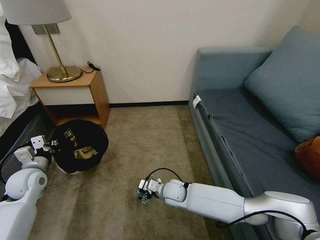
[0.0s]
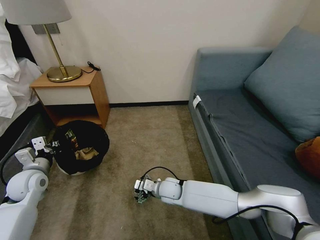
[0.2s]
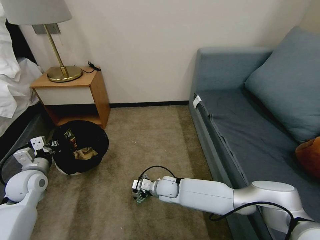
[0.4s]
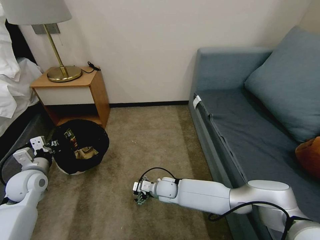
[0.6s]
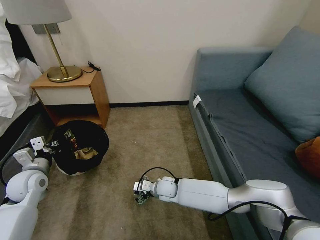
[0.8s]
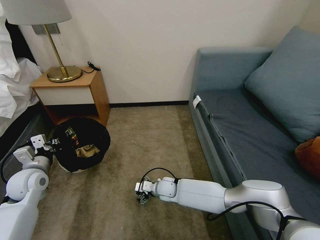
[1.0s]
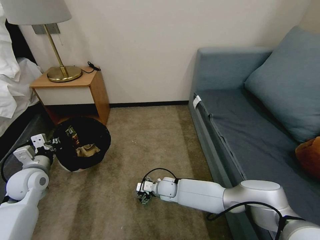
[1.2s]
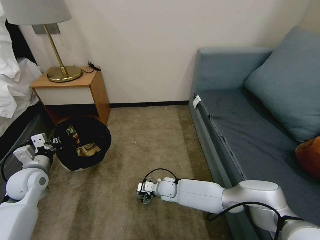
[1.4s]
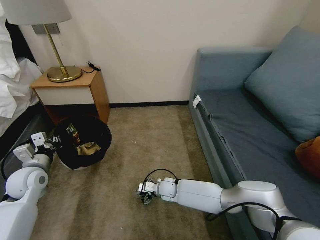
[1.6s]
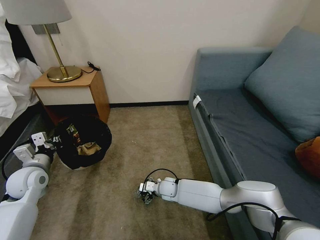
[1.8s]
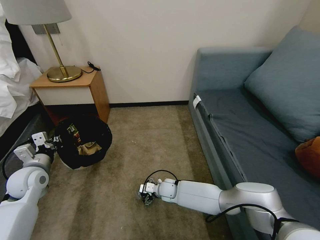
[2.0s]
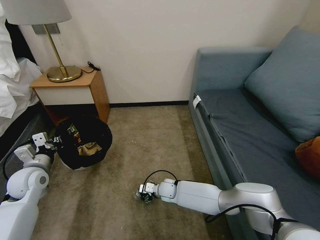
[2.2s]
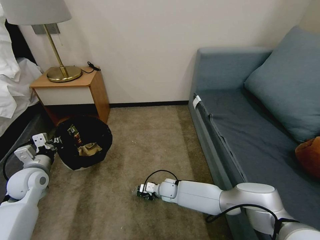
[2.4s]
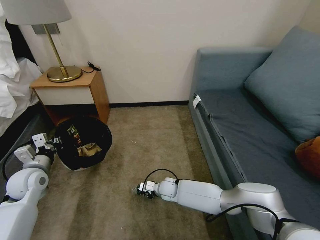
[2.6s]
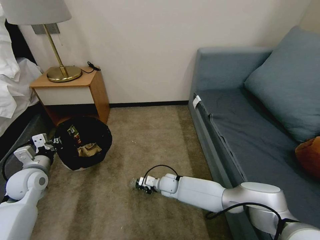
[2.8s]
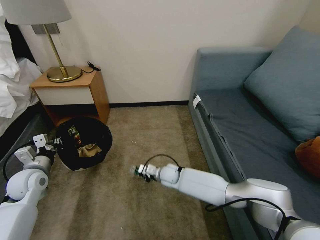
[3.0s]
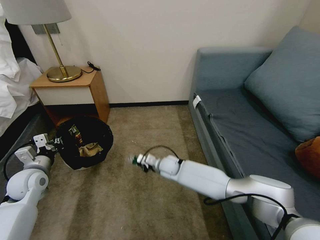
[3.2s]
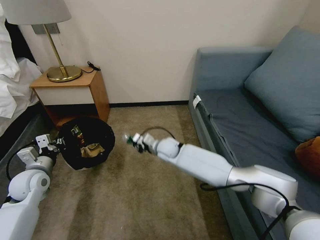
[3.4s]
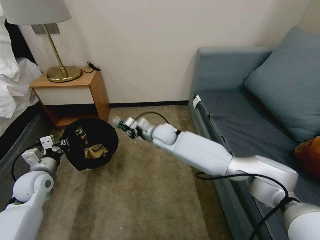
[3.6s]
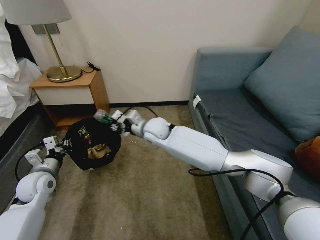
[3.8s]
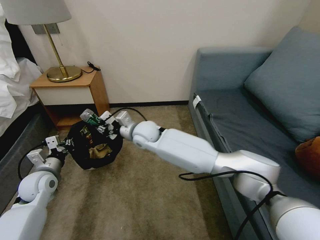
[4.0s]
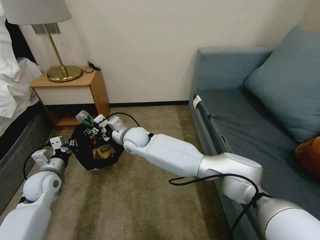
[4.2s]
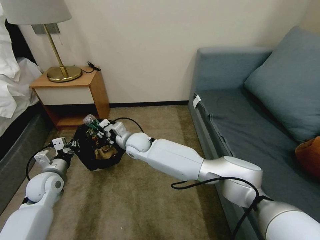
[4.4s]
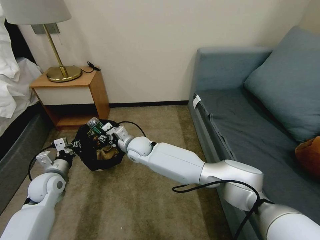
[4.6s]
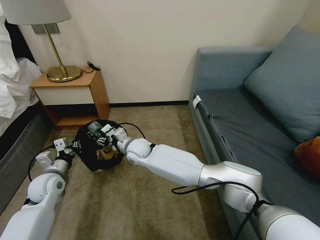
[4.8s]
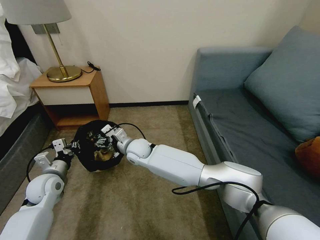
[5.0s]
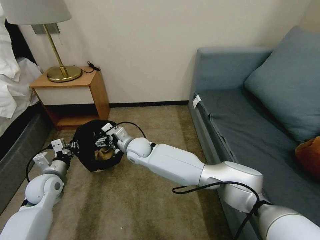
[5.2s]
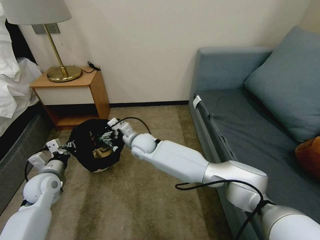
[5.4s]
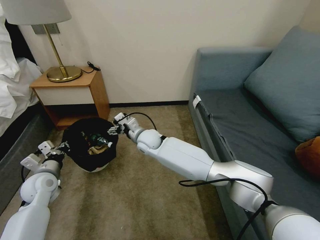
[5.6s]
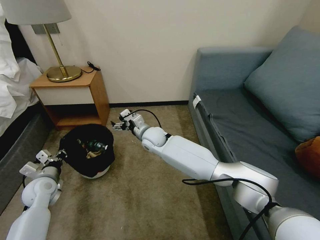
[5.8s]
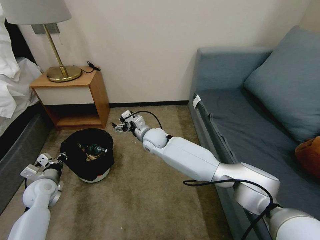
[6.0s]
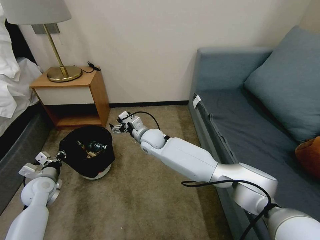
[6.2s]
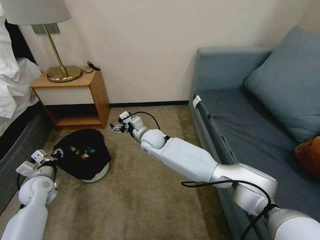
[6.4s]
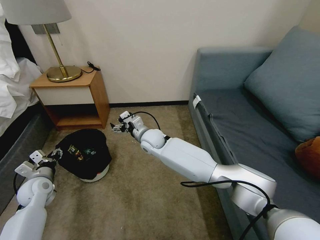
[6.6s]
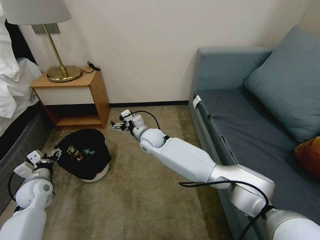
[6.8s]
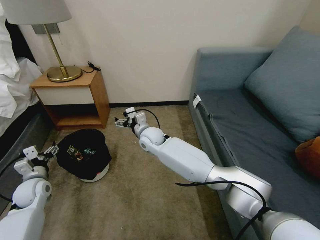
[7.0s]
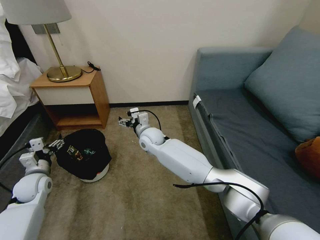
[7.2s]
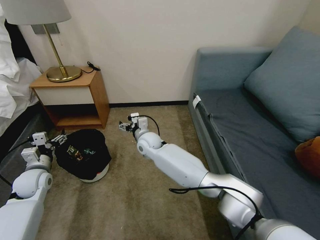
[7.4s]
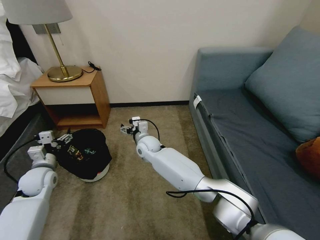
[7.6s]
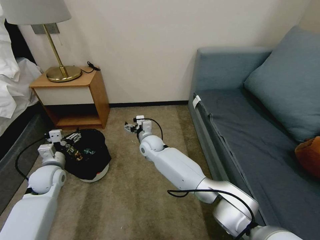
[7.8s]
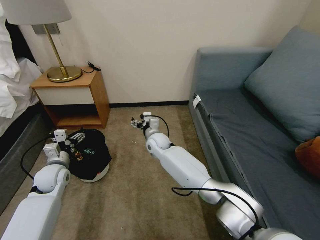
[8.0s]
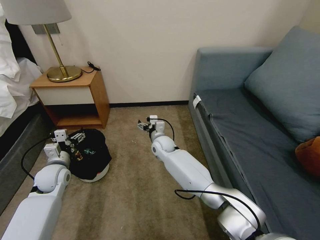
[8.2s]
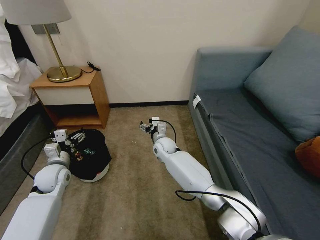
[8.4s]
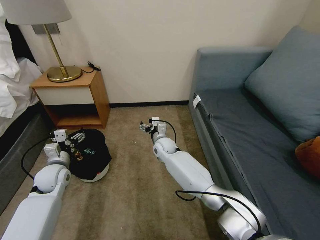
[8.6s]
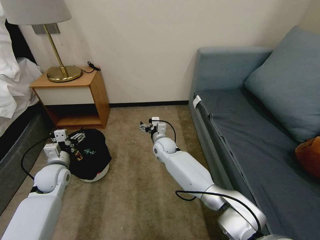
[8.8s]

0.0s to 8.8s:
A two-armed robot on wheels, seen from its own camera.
Task of the whole recording: Pick up the trash bin, then pick up the garbage on the floor and place it into the trash bin.
0.0s to 1.4s: The right gripper shifts some 5 cm downward.
1.4s to 3.0s: The right gripper ends up roughly 5 cm from where it was, and closes its fingers.
3.0s to 4.4s: The right gripper goes roughly 20 cm upward and to the left.
4.4s to 5.8s: The right gripper is displaced to the right by roughly 5 cm, and opens up.
5.8s to 7.4s: The left gripper opens up.
7.4s to 8.8s: The grippers both shift to the right by roughly 5 cm.

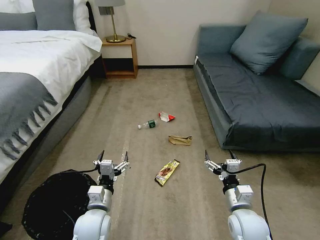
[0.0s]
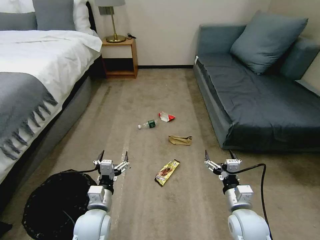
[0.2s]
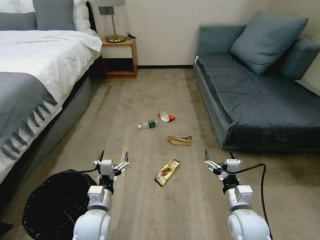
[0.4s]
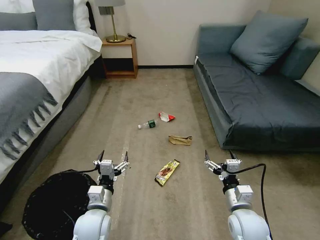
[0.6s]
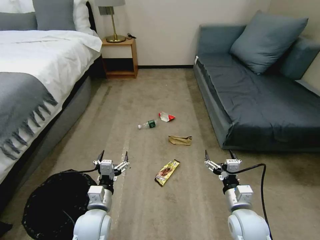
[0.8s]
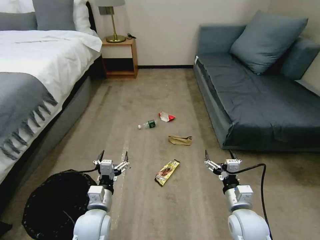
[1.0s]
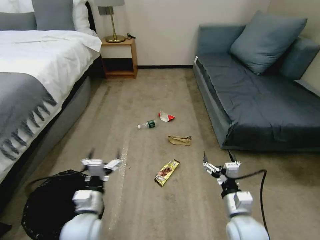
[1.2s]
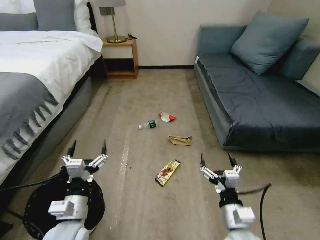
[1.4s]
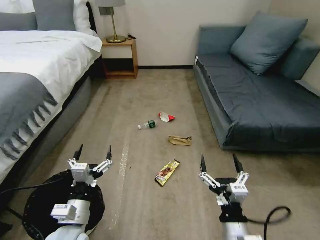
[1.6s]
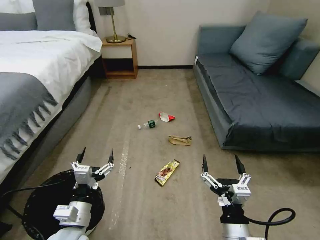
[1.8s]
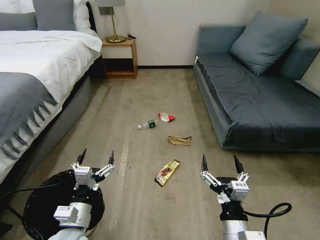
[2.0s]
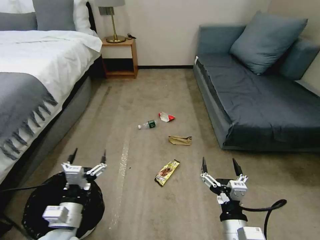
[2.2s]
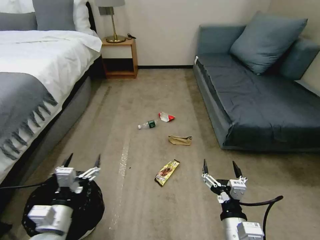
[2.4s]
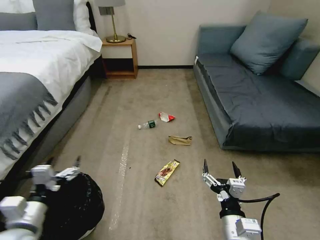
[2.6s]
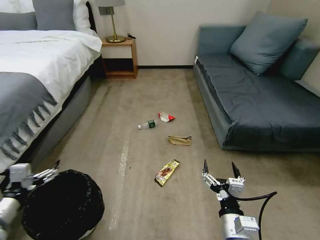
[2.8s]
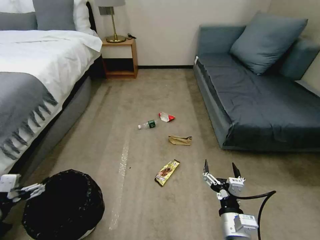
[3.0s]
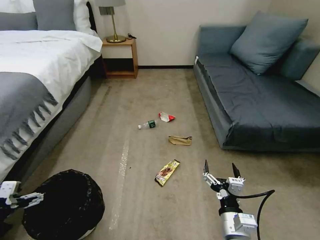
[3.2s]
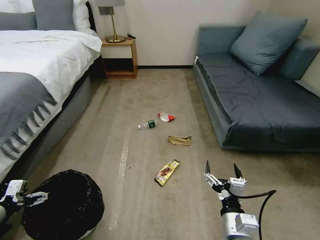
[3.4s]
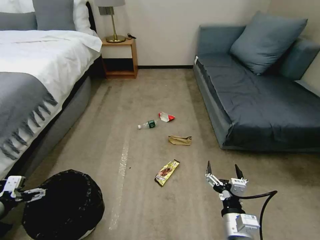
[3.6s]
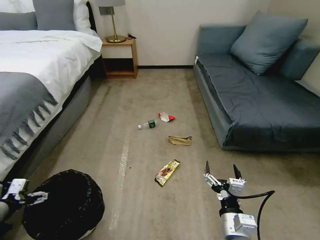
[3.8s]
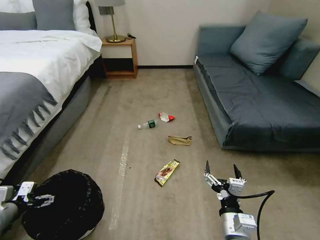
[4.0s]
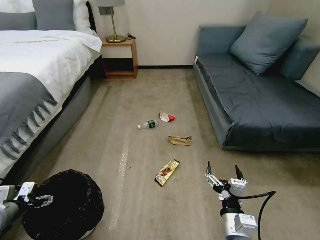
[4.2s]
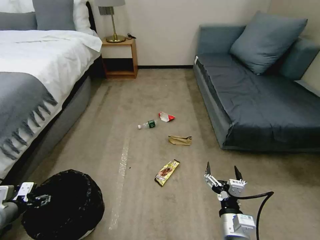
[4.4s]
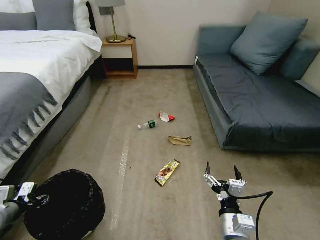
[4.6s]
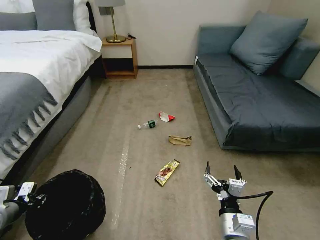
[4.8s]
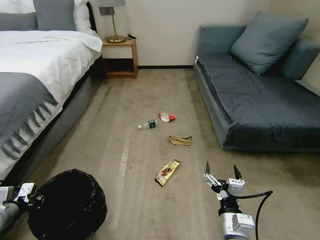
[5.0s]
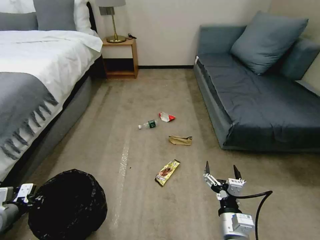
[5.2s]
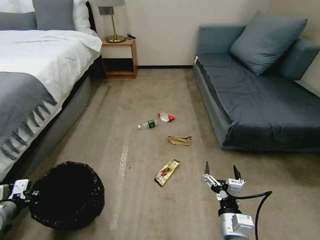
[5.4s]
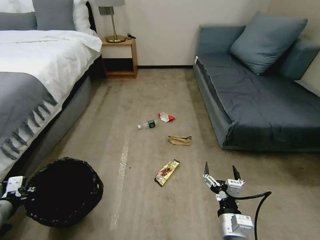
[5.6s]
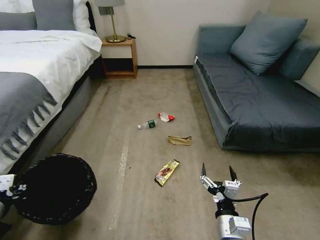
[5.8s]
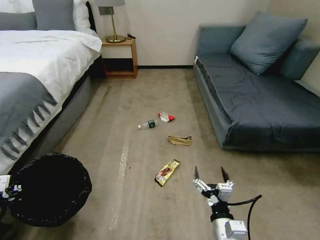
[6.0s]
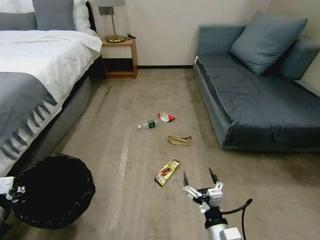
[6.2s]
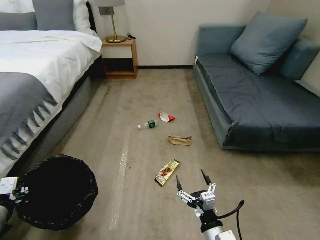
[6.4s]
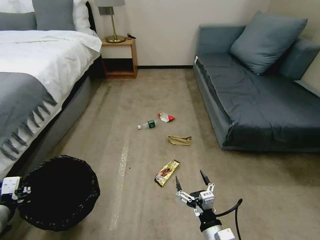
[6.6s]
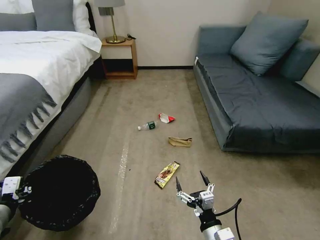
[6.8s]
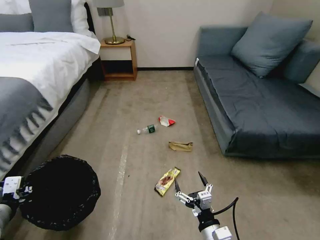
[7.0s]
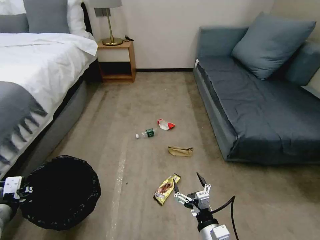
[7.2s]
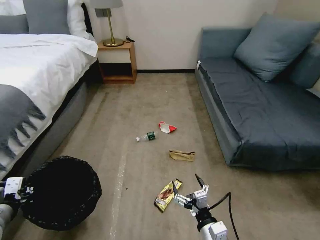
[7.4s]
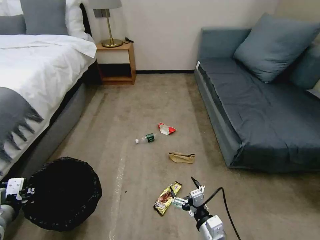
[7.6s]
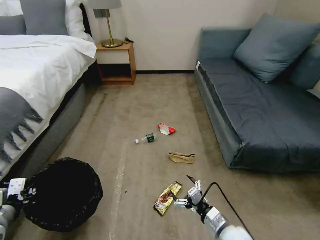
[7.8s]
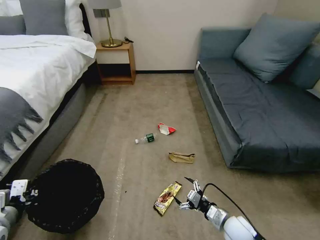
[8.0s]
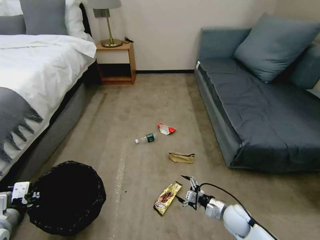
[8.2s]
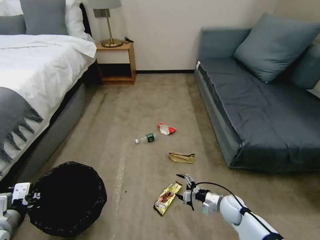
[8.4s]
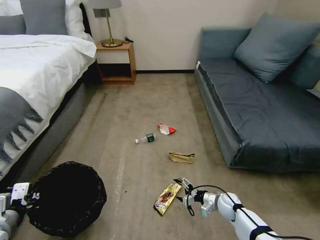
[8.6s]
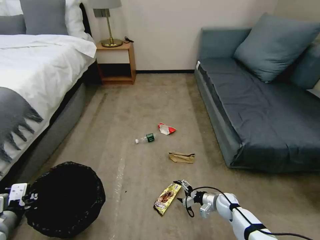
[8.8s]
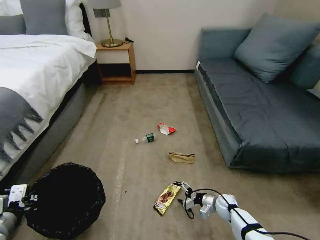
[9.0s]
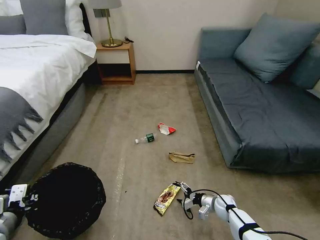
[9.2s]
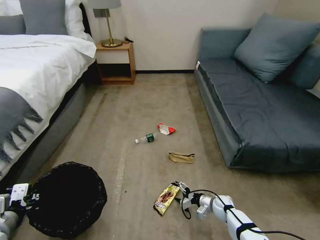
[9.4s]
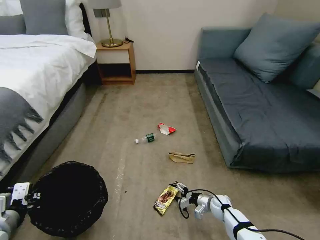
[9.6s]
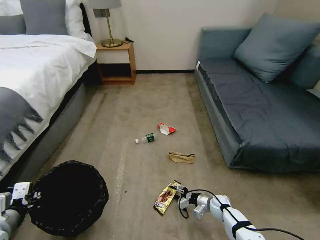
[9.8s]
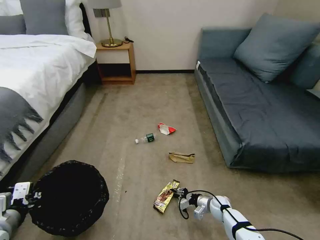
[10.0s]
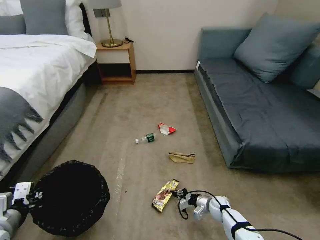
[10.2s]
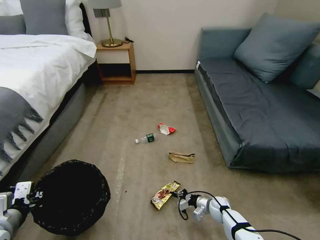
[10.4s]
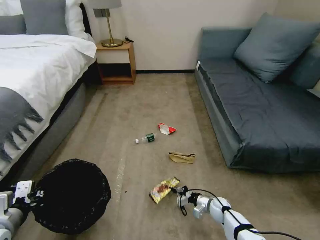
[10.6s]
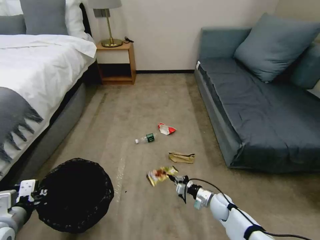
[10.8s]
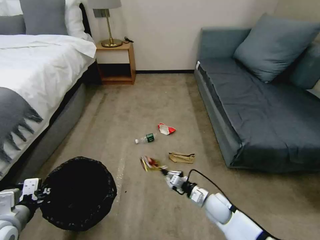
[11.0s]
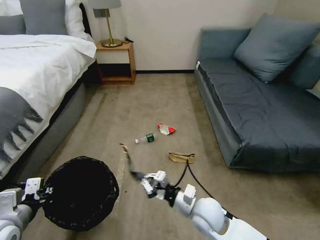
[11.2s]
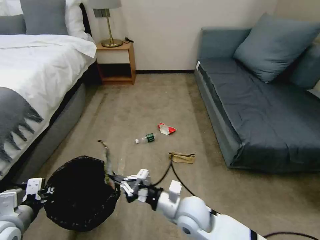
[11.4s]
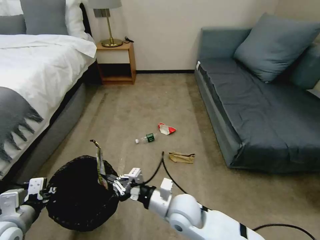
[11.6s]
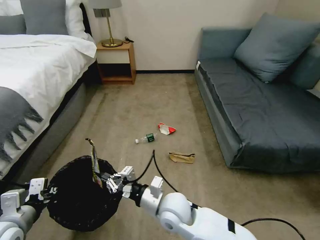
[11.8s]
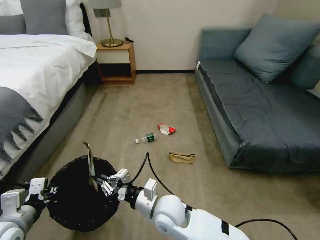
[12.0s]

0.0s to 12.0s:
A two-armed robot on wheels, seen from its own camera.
Task of the whole recording: Pick up the trash bin, then pick up the garbage on the floor and place it into the trash bin.
1.6s to 3.0s: The left gripper is displaced to the left by roughly 20 cm.
3.0s to 4.4s: The left gripper heads downward and forward, covering some 10 cm.
4.4s to 6.0s: The left gripper travels upward and to the right by roughly 10 cm, and closes up.
7.6s to 9.0s: The right gripper moves forward, downward and to the right, some 30 cm.
9.0s to 10.4s: The right gripper closes up.
10.4s to 12.0s: The right gripper shifts approximately 35 cm to the left and upward.

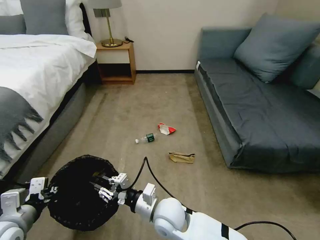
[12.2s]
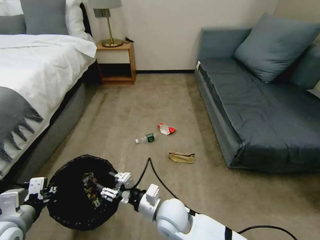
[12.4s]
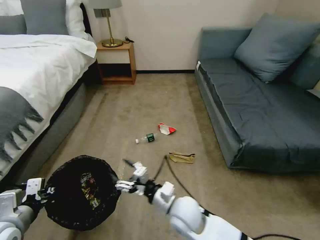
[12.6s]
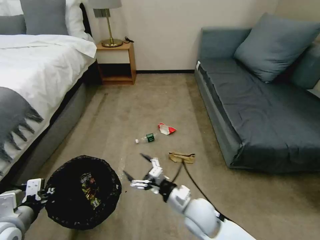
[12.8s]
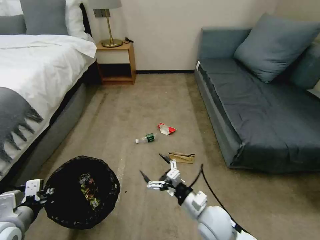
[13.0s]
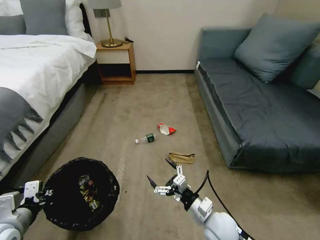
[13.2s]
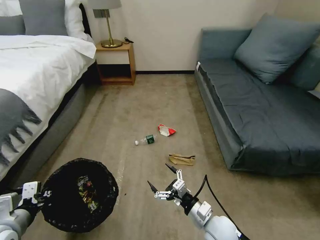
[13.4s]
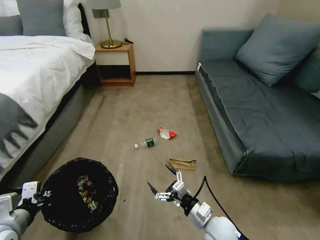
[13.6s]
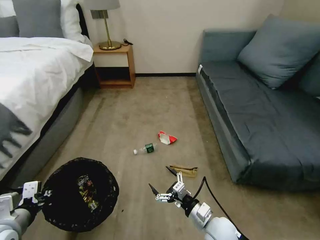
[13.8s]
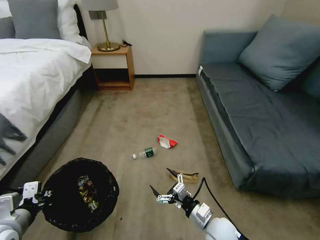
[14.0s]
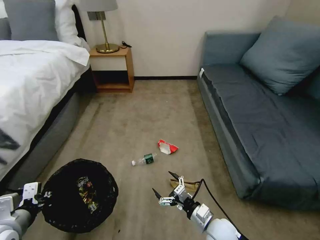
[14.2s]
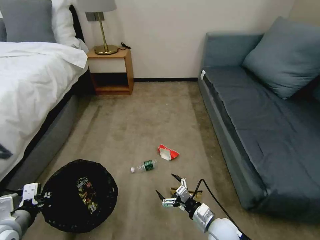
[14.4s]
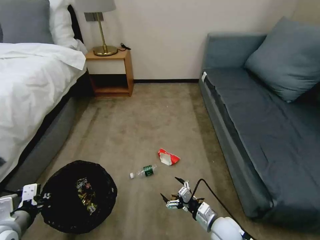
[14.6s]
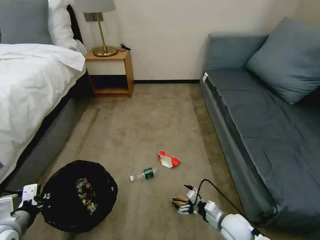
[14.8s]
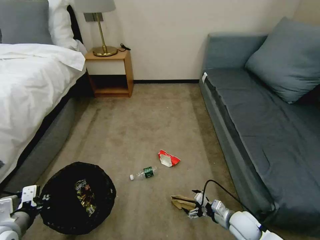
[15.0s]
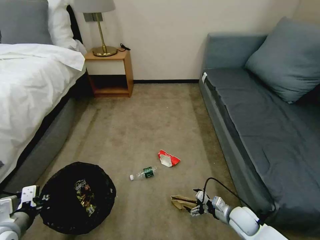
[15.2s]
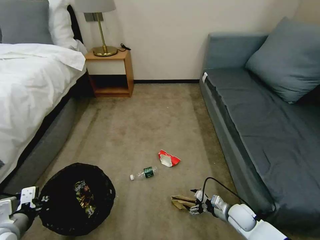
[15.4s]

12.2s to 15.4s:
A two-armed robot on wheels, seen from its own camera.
Task of the whole recording: Pick up the trash bin, then pick up the garbage on the floor and place it into the trash bin.
12.2s to 13.8s: The right gripper moves to the right, some 15 cm, and opens up.
13.8s to 15.4s: The right gripper travels to the right, downward and forward by roughly 20 cm.
